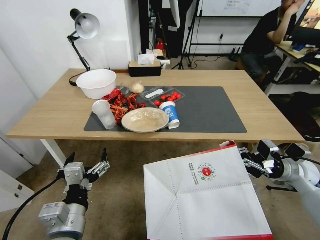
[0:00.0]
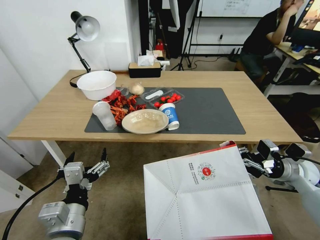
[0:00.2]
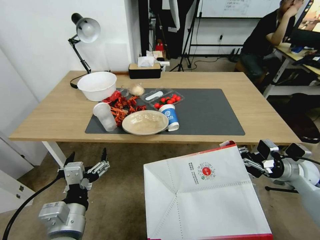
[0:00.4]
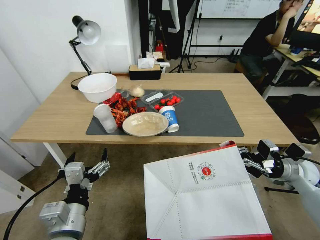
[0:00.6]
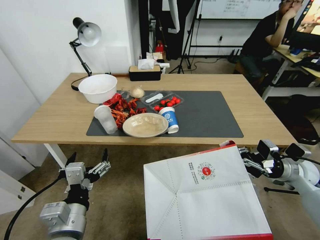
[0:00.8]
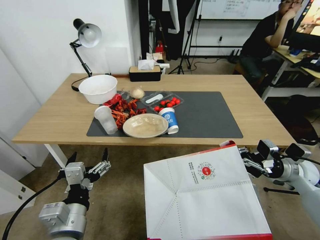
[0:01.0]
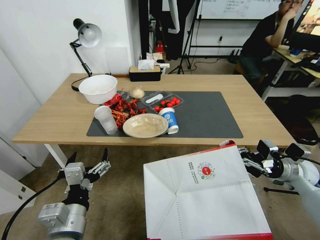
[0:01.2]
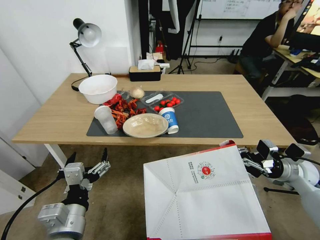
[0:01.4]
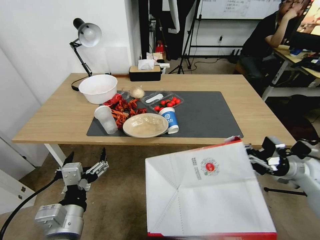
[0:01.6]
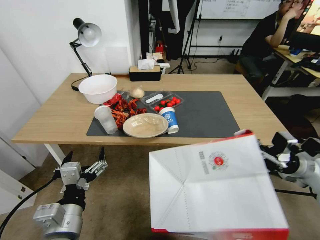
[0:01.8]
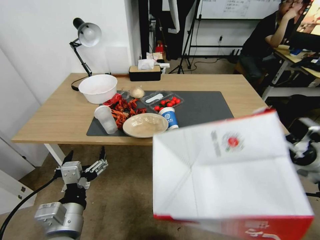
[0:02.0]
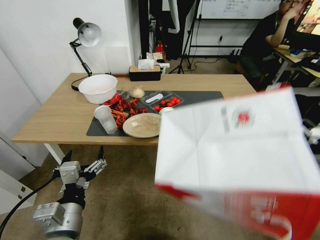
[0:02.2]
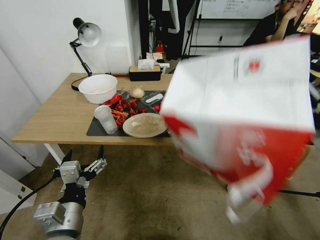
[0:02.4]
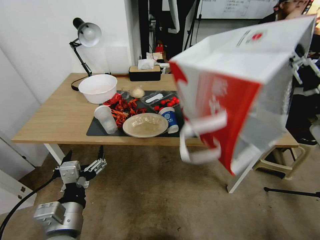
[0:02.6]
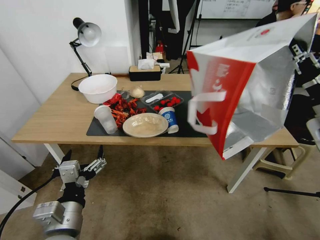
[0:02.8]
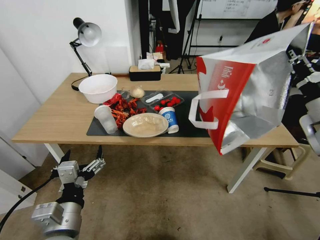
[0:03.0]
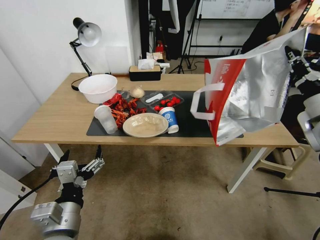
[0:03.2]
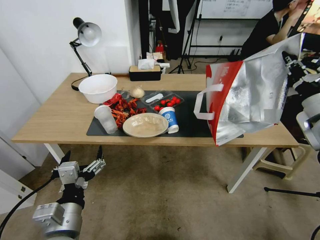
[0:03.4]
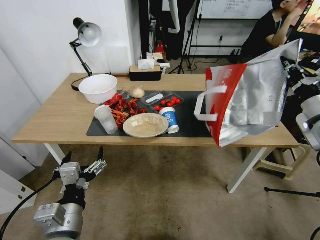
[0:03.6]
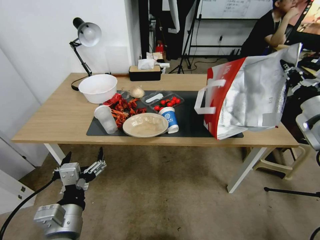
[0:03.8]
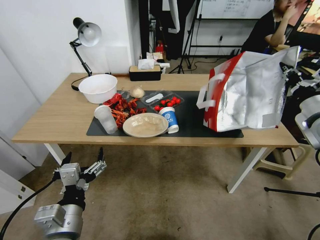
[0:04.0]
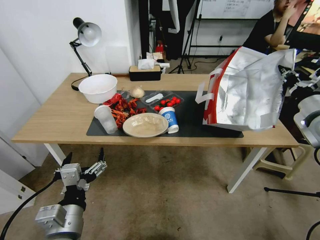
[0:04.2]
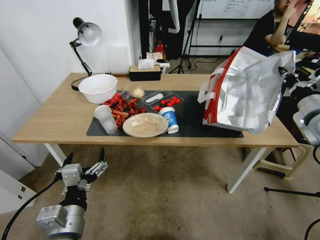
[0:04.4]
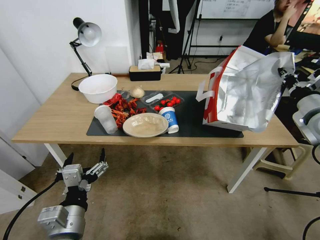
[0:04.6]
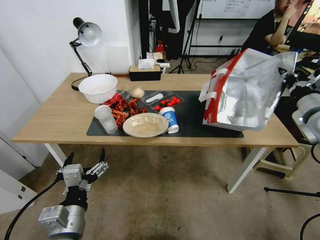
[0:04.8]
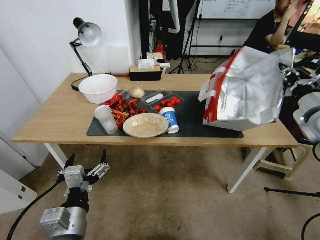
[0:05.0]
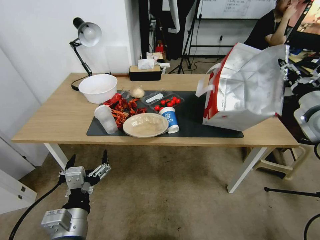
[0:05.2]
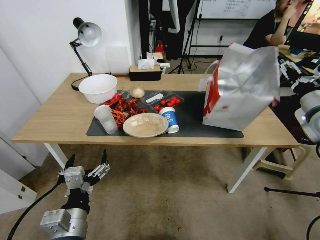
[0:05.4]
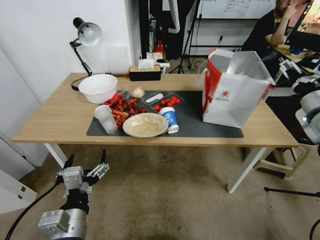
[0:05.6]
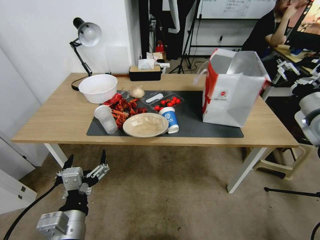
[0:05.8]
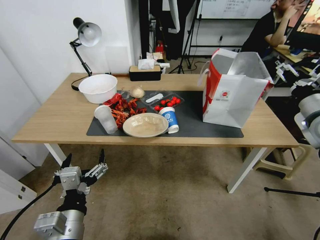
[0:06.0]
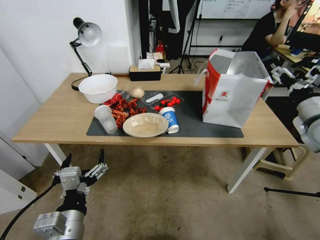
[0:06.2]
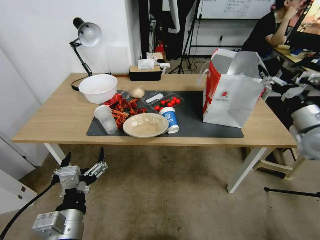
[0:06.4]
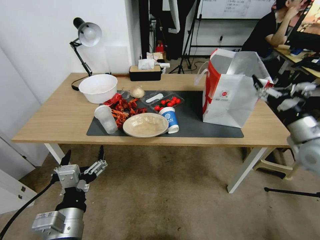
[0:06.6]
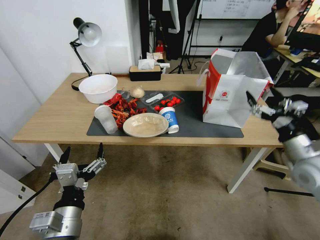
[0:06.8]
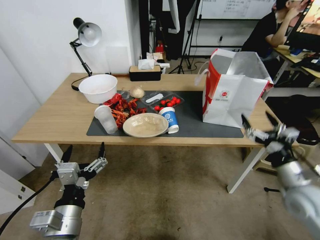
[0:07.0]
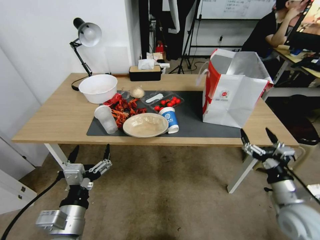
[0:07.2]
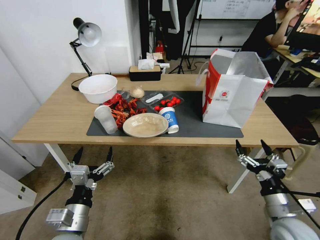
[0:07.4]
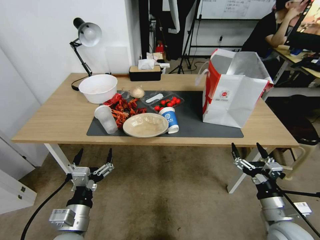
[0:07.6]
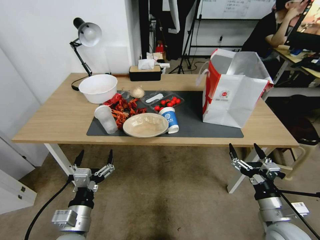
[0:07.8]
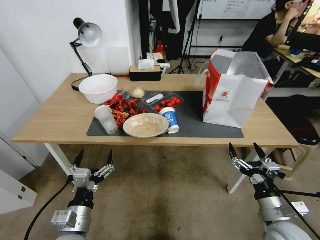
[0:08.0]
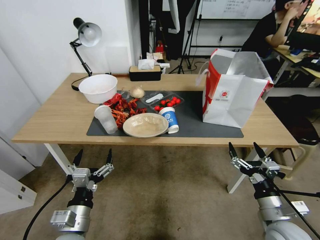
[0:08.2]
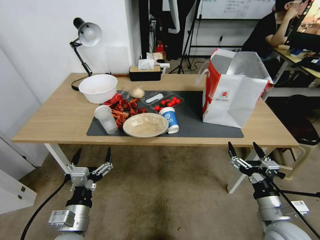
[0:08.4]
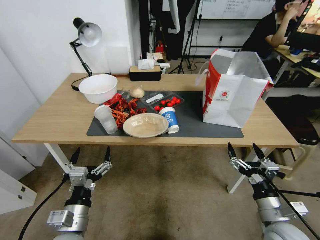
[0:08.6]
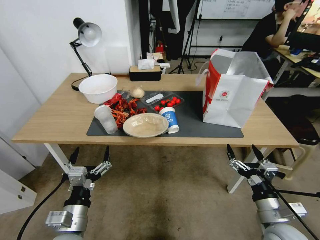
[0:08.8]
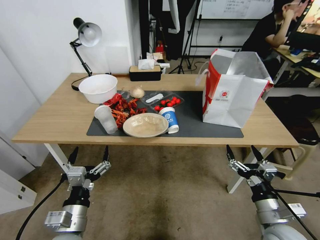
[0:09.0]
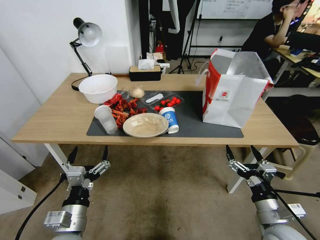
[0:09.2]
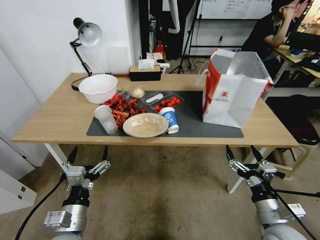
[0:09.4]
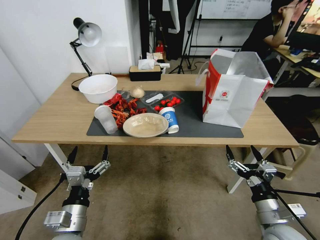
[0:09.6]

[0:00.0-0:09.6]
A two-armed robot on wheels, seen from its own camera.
Task of the whole recording: Pick up the food delivery bag from the floor and place it on the table.
0:01.6 to 0:03.2: The right gripper is displaced upward by roughly 15 cm.
0:04.8 to 0:06.4: The right gripper opens.
0:06.4 to 0:08.0: The right gripper moves downward, backward and to the left, some 30 cm. Meanwhile the left gripper travels downward by roughly 10 cm.
0:08.0 to 0:09.6: The grippers stay close to where they were, moving slightly.

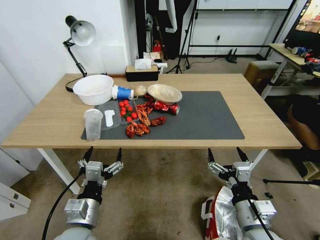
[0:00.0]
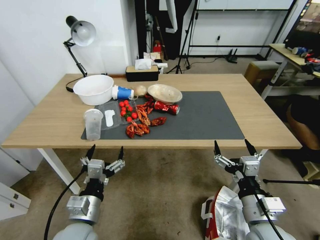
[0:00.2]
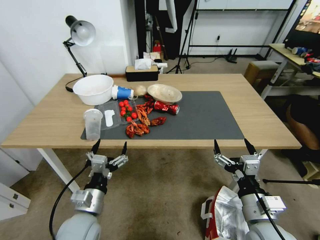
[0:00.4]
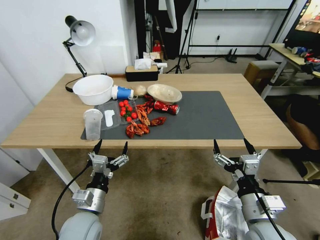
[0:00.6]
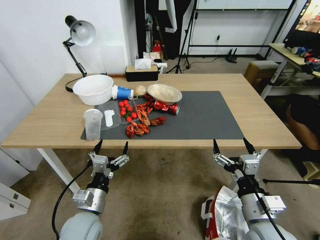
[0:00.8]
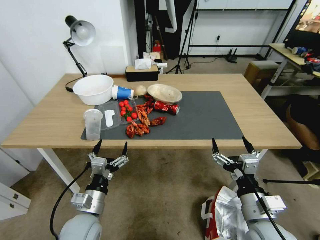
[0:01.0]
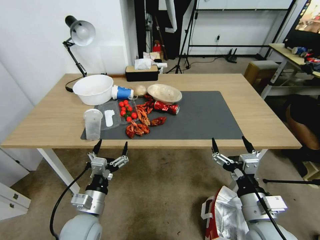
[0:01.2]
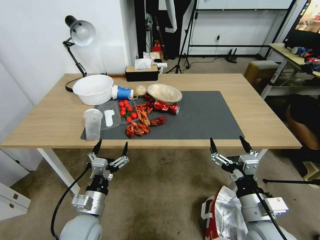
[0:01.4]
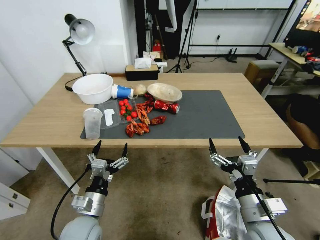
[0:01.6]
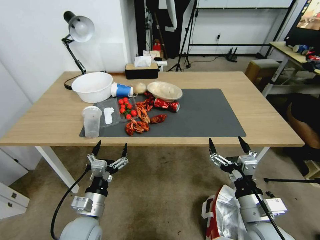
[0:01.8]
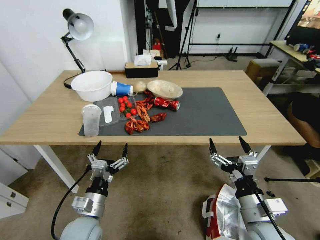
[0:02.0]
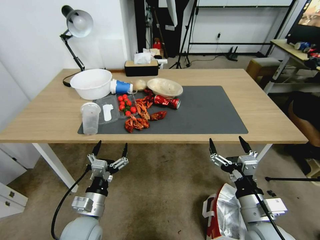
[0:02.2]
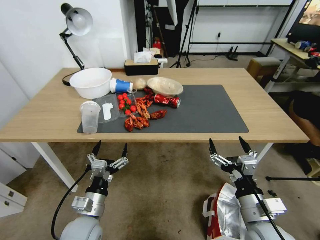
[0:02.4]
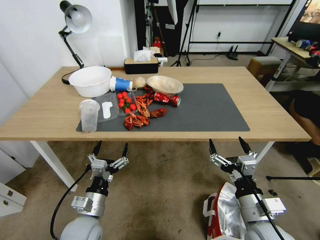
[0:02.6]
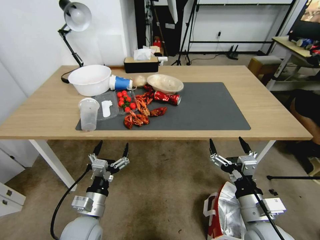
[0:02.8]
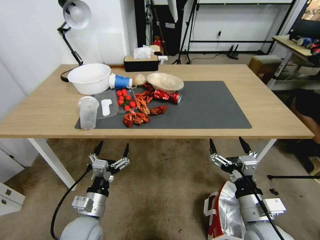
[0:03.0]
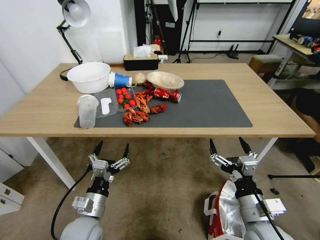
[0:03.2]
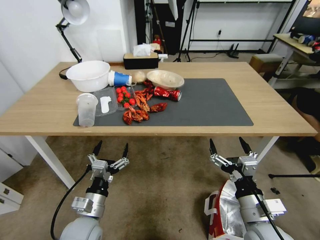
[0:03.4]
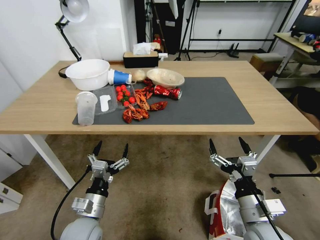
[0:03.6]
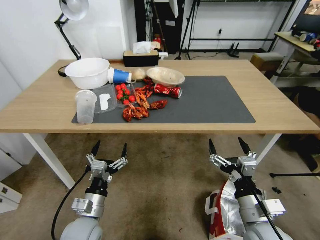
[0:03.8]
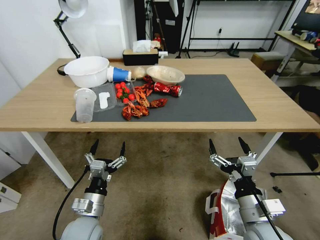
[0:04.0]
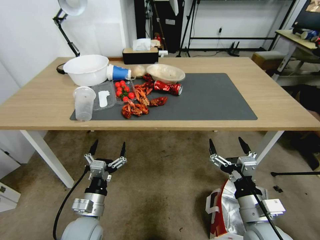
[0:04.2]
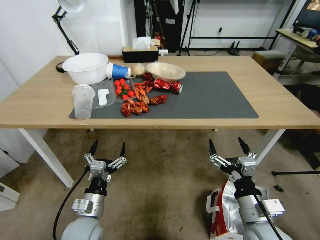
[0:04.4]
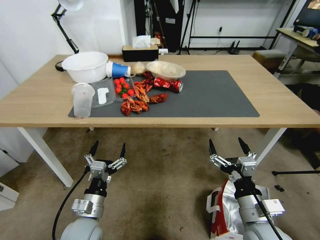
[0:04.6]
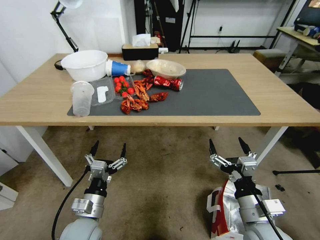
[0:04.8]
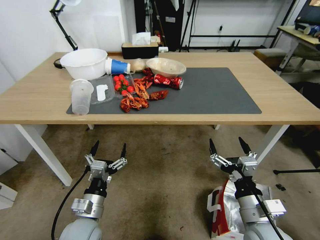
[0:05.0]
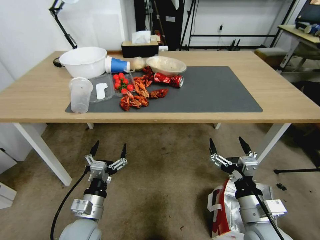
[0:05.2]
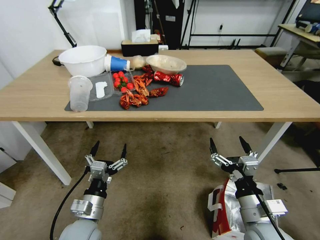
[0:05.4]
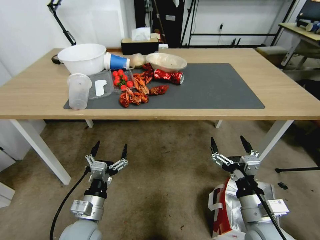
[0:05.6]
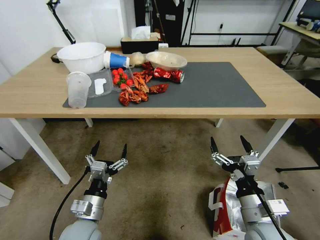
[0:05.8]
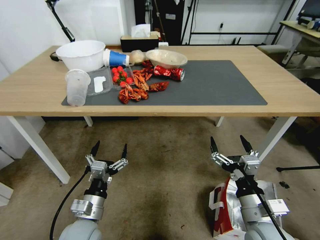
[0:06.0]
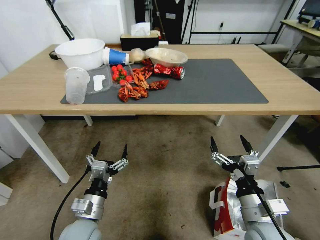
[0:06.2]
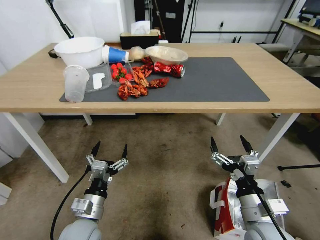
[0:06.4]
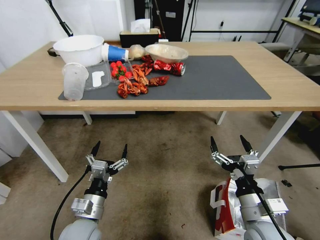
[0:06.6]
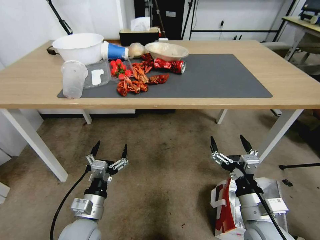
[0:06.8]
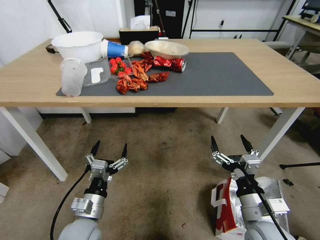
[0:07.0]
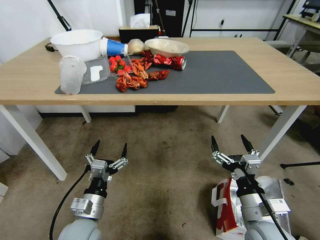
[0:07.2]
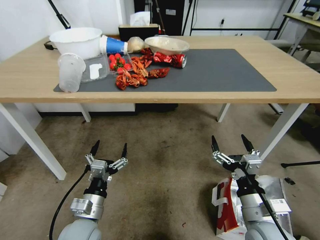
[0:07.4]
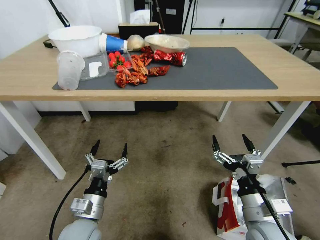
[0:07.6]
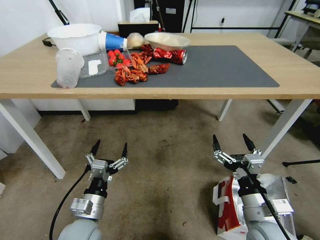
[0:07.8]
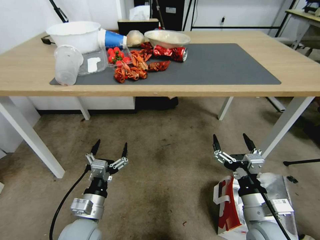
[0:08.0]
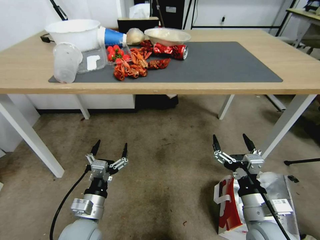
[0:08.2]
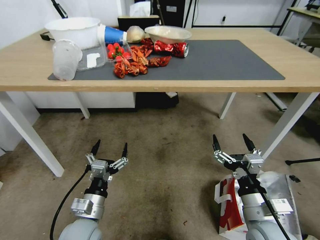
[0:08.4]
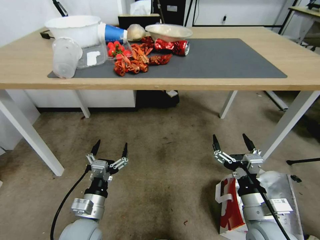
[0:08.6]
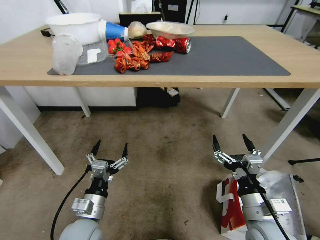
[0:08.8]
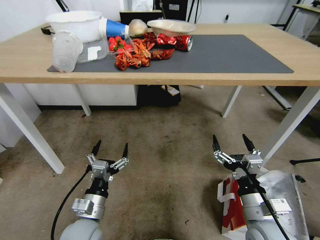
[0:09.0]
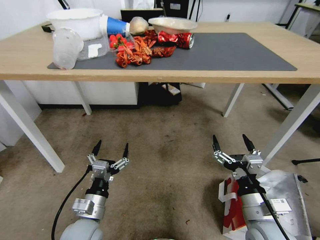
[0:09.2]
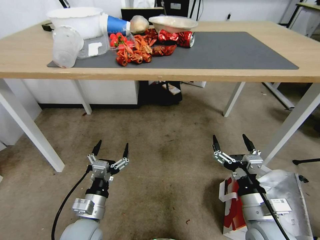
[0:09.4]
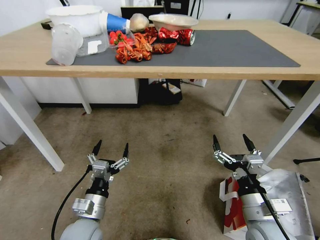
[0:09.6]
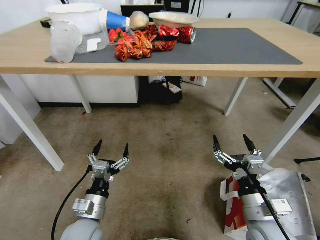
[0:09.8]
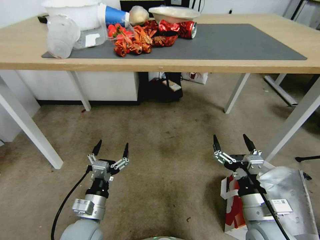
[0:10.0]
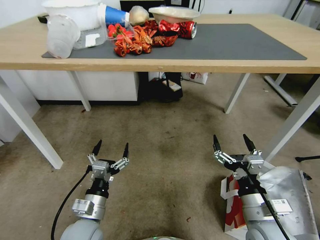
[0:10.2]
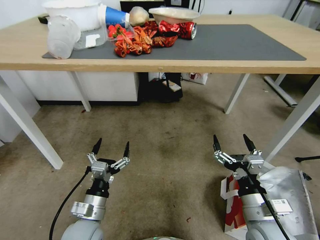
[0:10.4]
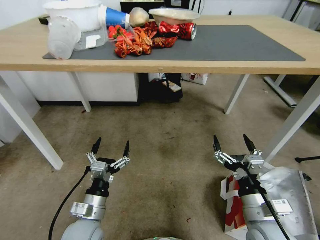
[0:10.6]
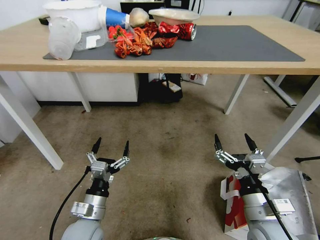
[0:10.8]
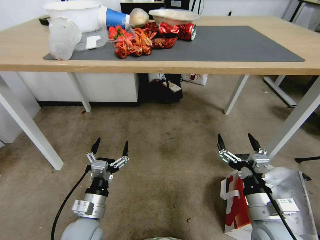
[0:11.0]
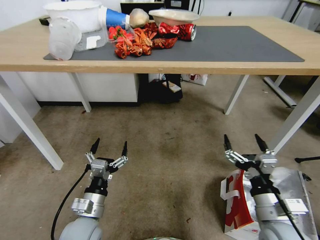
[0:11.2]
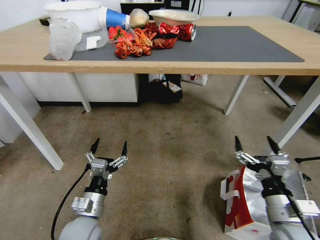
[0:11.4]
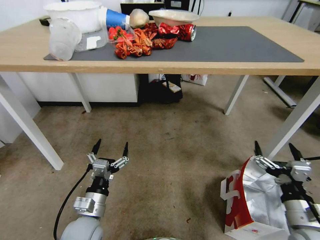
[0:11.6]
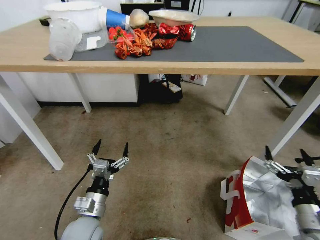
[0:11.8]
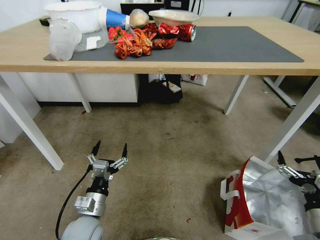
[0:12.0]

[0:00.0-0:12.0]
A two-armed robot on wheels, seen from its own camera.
Task of the whole recording: Pick up the food delivery bag from the floor and place it on the table.
0:10.4 to 0:12.0: The right gripper heads to the right, covering roughly 15 cm.

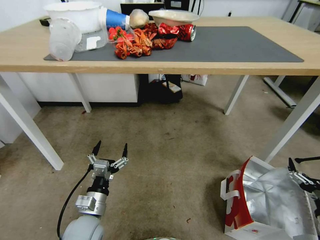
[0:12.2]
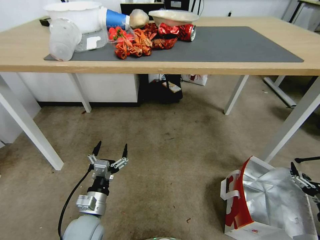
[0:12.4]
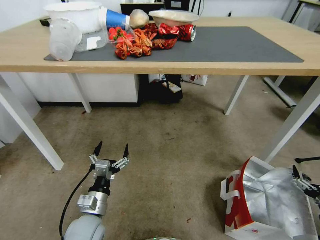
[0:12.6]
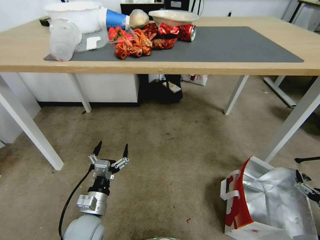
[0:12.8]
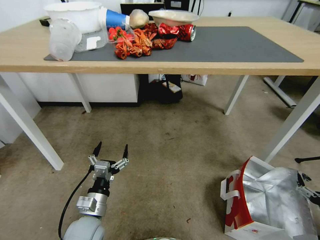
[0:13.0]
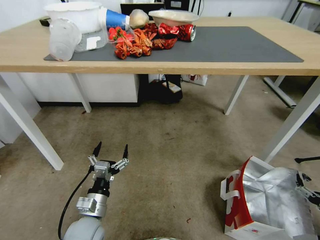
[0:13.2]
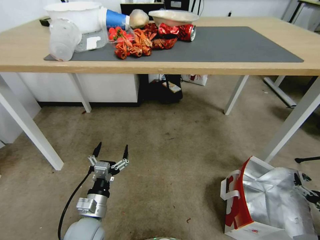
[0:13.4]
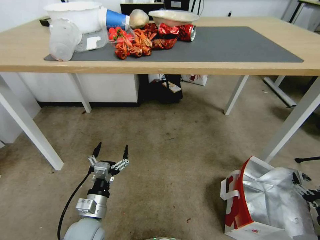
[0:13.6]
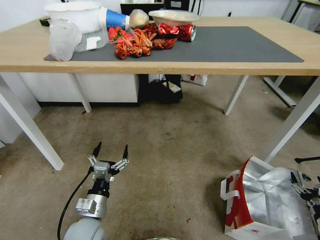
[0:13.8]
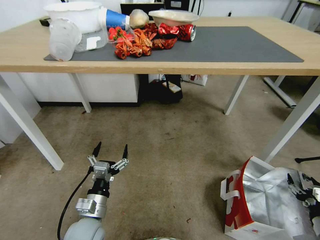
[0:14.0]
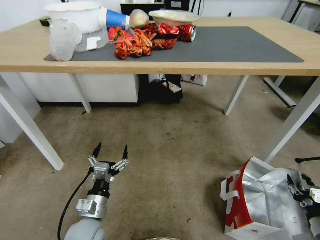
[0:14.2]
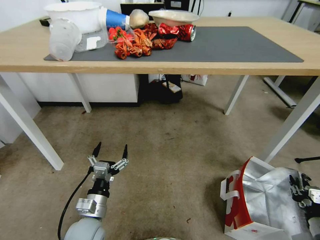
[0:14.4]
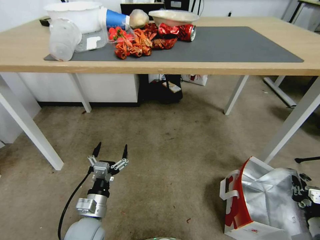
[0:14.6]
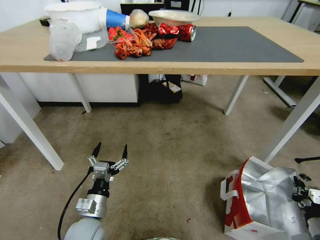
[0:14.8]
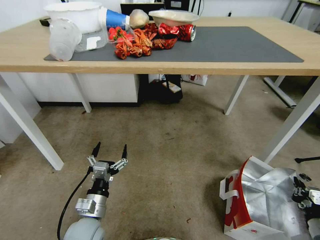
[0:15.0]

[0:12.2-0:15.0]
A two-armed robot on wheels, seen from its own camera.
Task of the whole recording: Pick up the food delivery bag from the floor and place it on the table.
0:12.2 to 0:13.6: The right gripper shifts roughly 10 cm to the right and downward.
0:13.6 to 0:15.0: The right gripper closes up.
